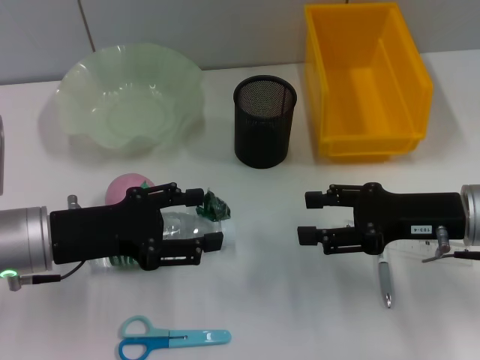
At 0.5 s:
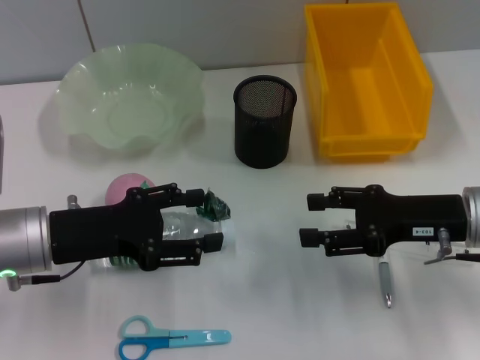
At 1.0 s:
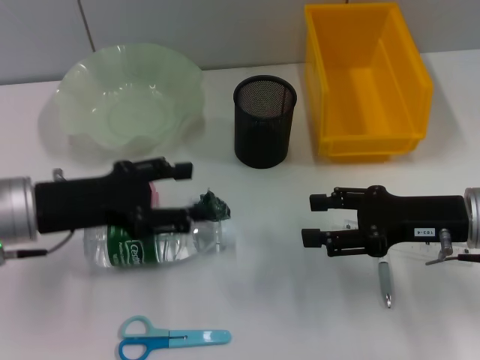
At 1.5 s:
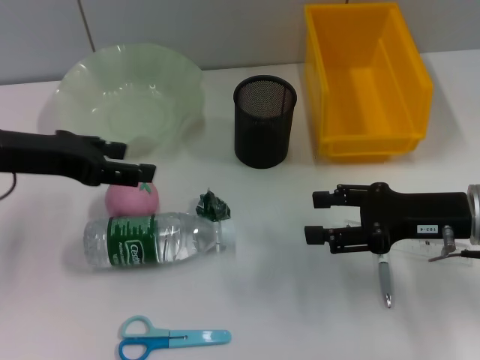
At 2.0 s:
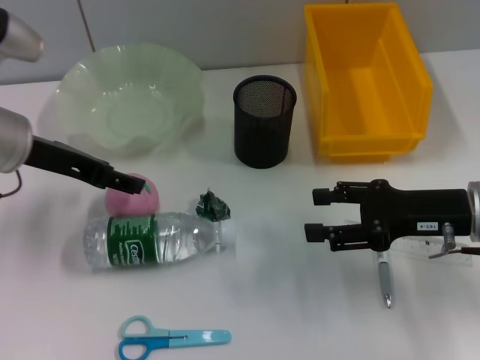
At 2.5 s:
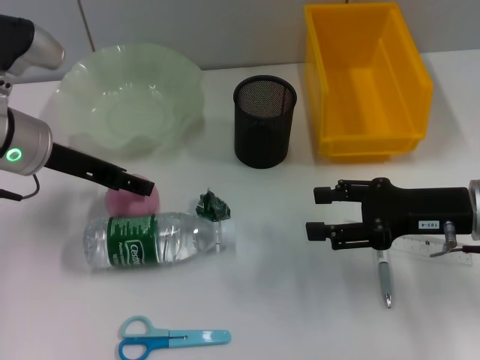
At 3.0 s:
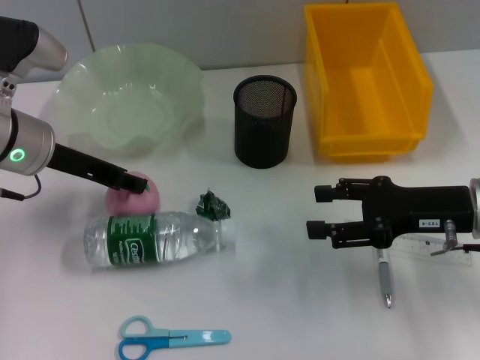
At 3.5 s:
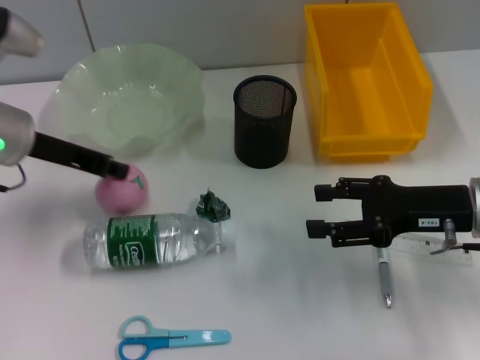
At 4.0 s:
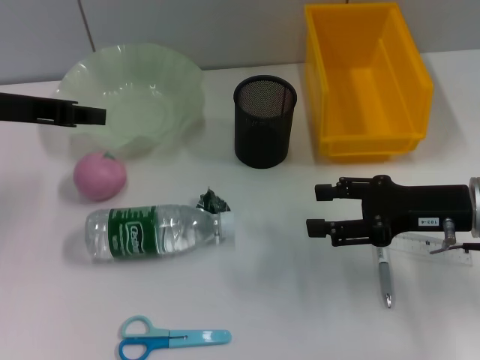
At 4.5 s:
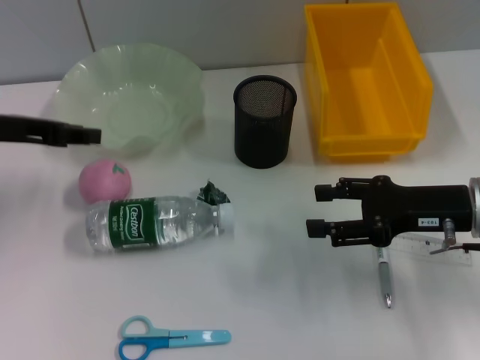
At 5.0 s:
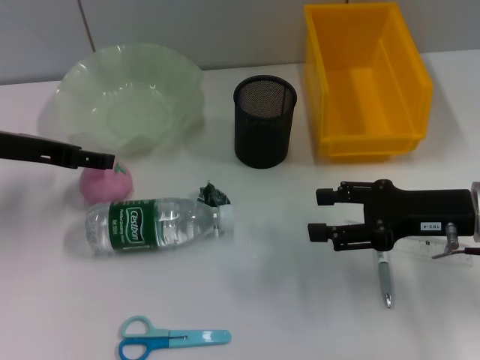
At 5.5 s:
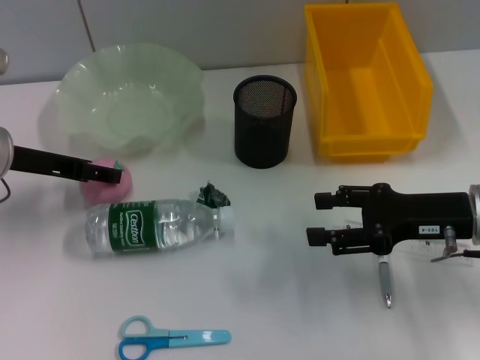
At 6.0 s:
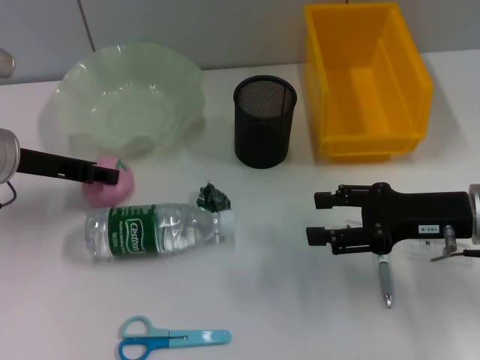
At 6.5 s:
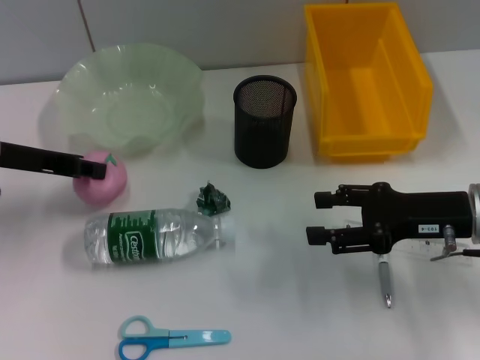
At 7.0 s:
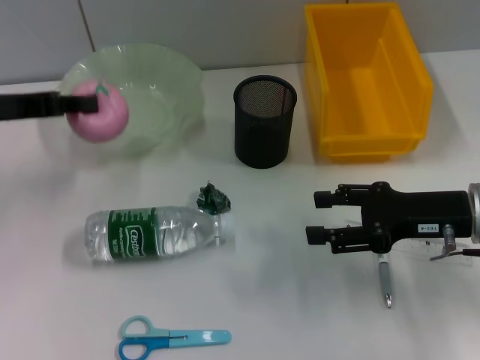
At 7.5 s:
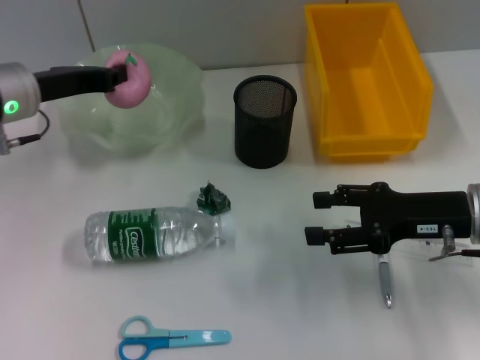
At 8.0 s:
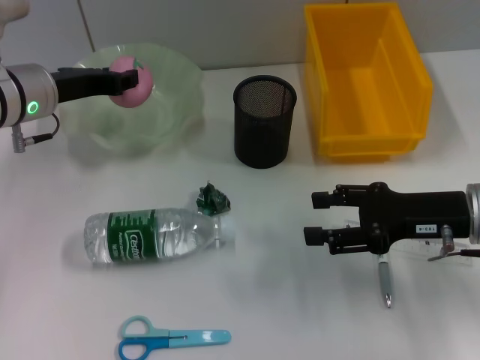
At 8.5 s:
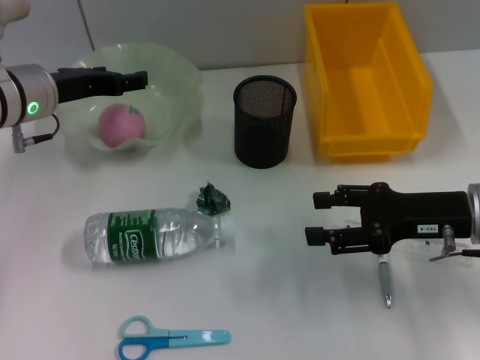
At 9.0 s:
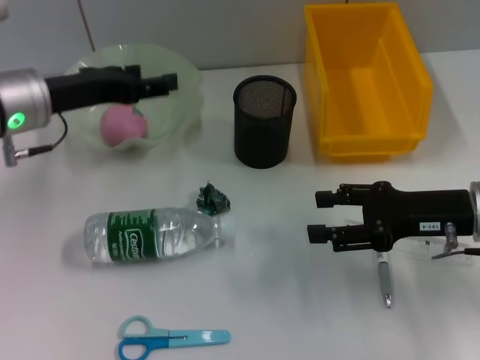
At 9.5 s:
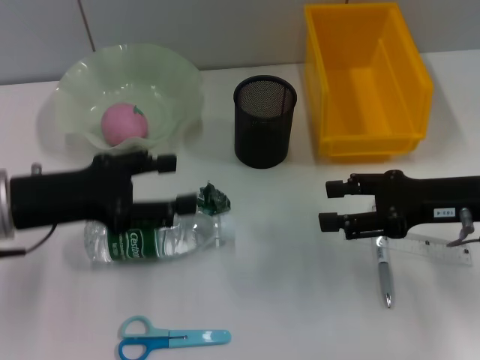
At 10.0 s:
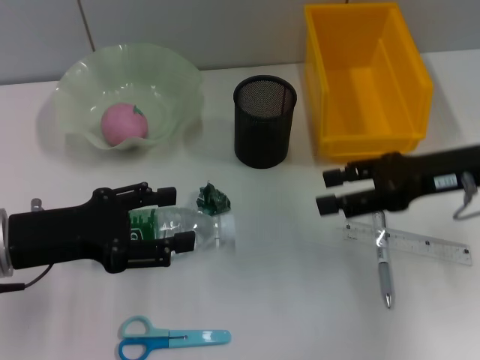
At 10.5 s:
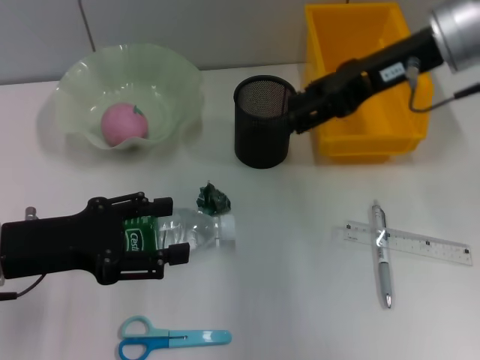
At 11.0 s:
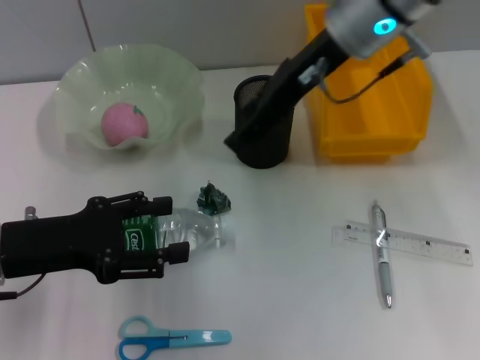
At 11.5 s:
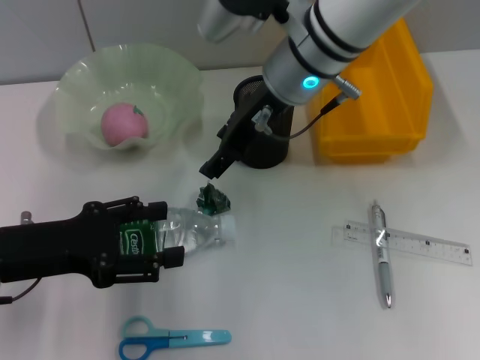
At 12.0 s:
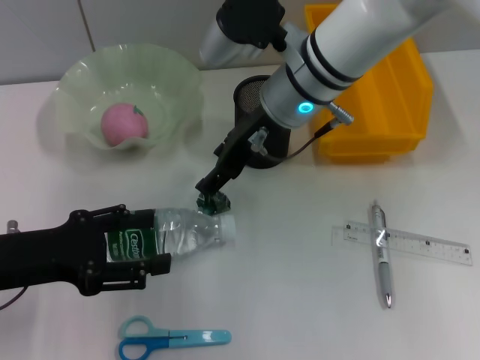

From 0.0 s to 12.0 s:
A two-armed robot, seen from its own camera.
Step, from 0.0 s to 6.0 s: Grab the peach with the left hand.
Step, from 6.5 s to 8.5 s: Place the peach into the fruit bowl with the left hand.
From 0.0 s to 2.0 s: The left gripper goes about 10 cm forward and upward.
From 2.0 s to 4.0 s: The left gripper ends up about 5 cm from where it was, and closes its fingers.
From 4.0 s to 6.0 s: The left gripper travels downward by about 5 cm, and opens up.
From 6.0 s to 8.0 s: The left gripper moves roughly 5 cm, and closes up.
From 8.0 s to 10.0 s: The right gripper travels upward by about 5 cm, while the left gripper moves backward, some 15 cm, and opens its fingers.
From 10.0 s to 12.0 s: The right gripper heads to the left and forward, covering some 20 cm.

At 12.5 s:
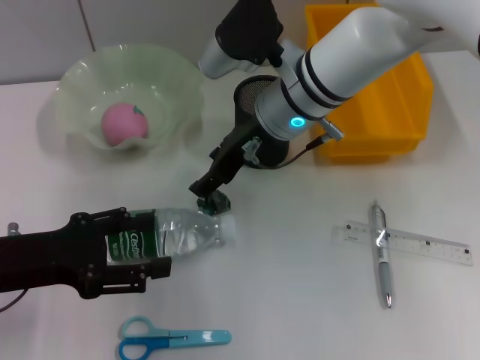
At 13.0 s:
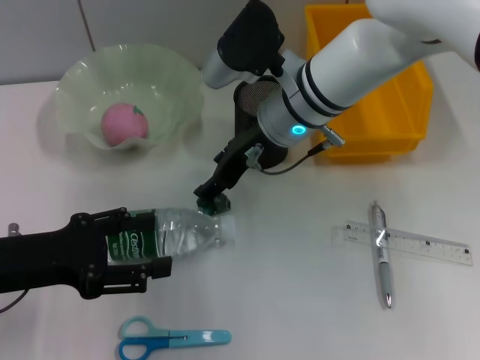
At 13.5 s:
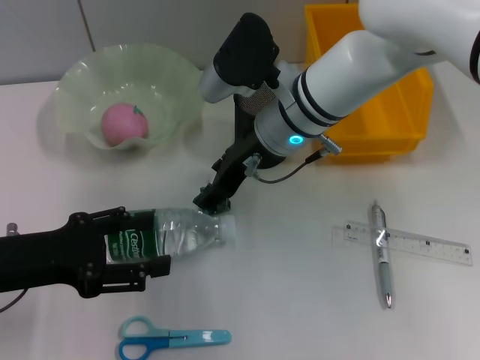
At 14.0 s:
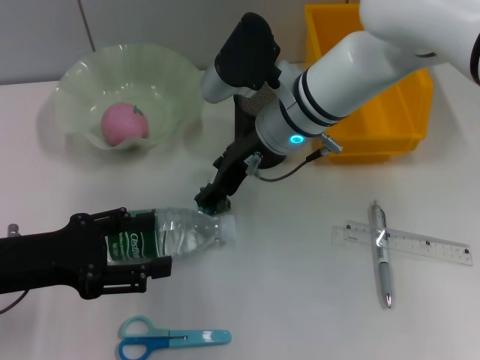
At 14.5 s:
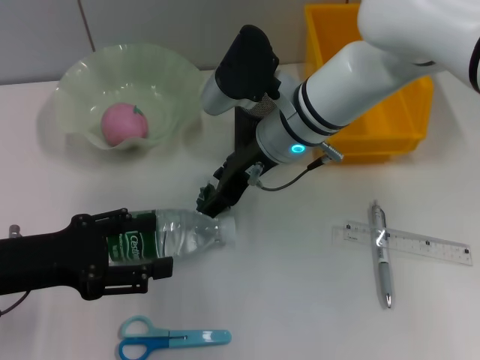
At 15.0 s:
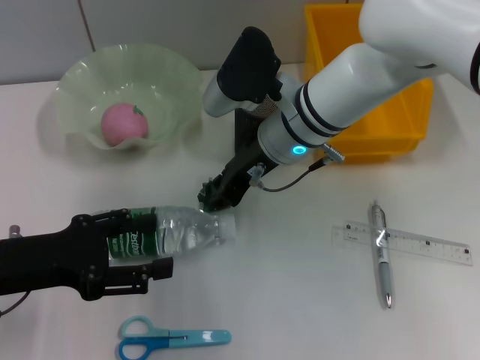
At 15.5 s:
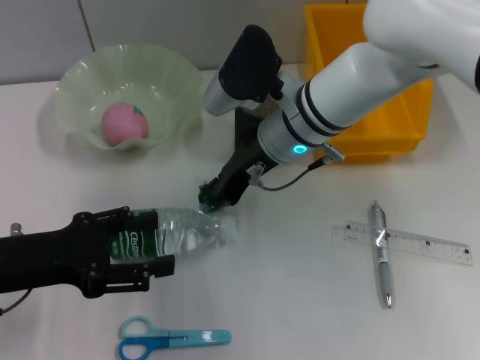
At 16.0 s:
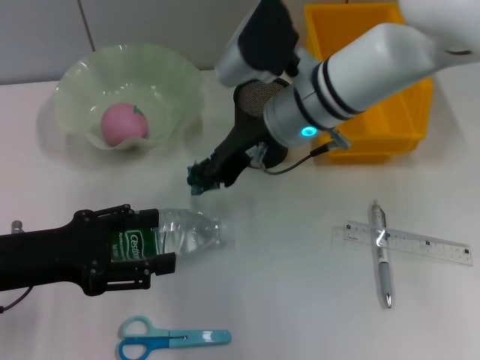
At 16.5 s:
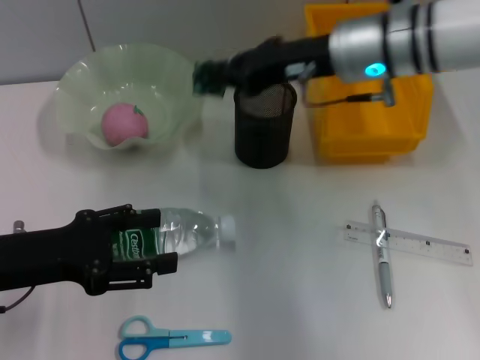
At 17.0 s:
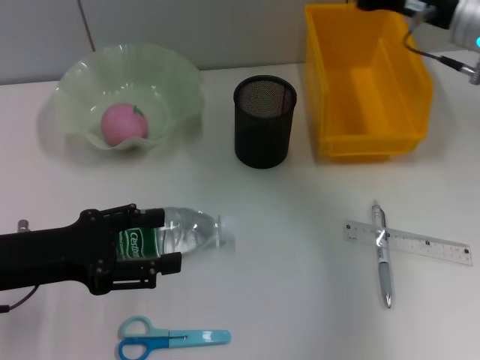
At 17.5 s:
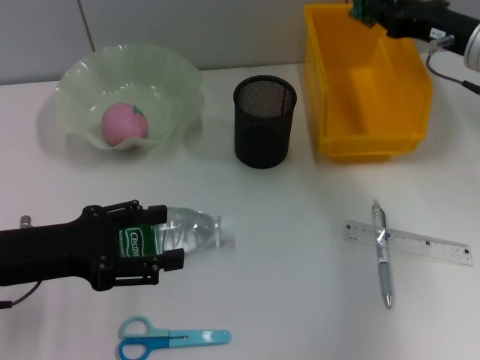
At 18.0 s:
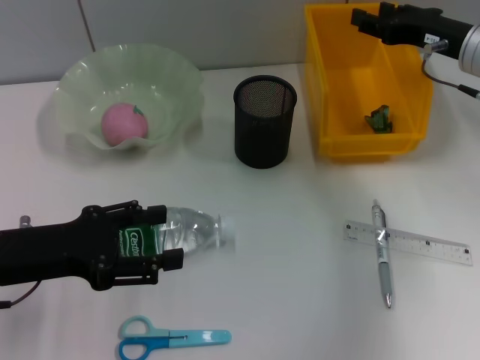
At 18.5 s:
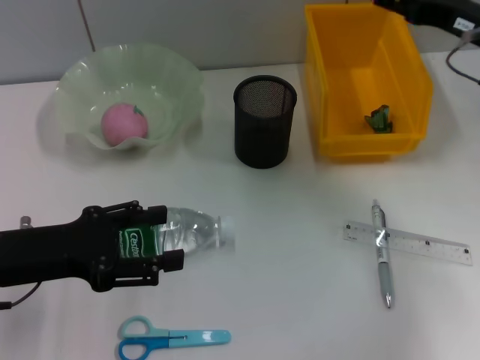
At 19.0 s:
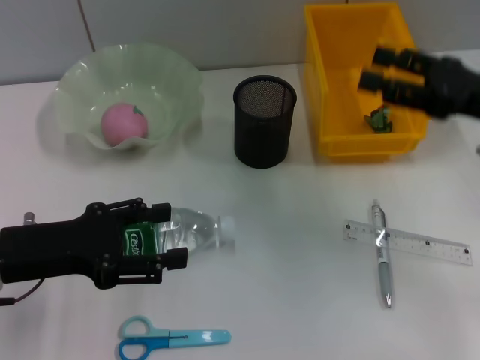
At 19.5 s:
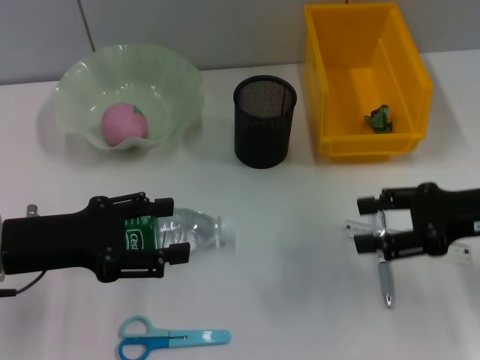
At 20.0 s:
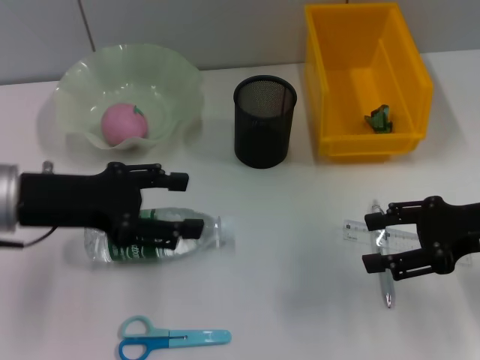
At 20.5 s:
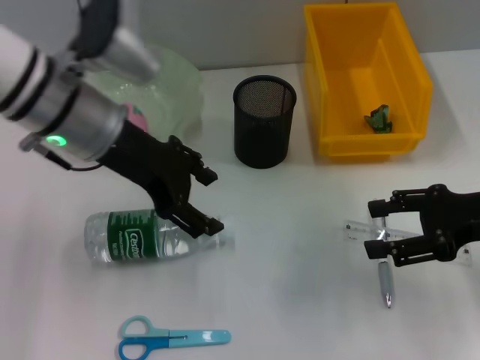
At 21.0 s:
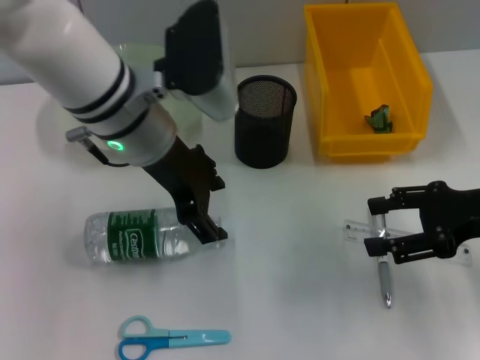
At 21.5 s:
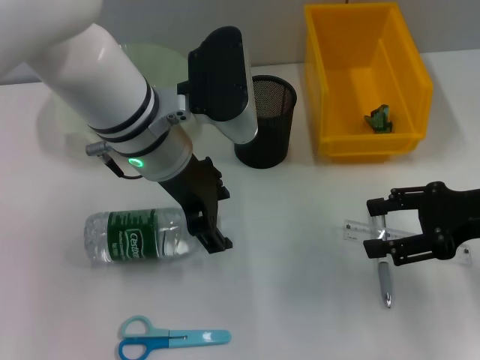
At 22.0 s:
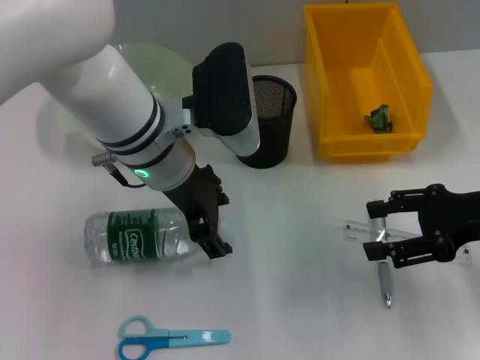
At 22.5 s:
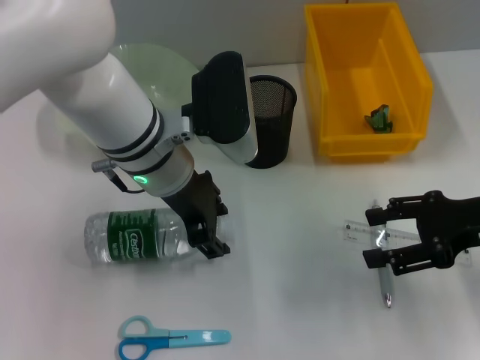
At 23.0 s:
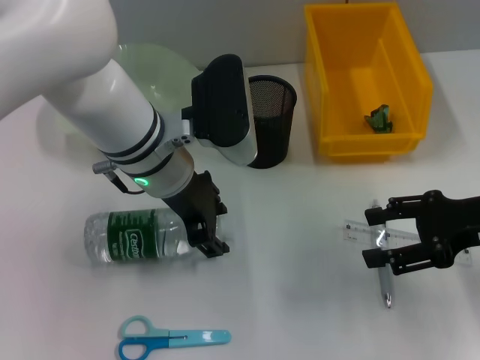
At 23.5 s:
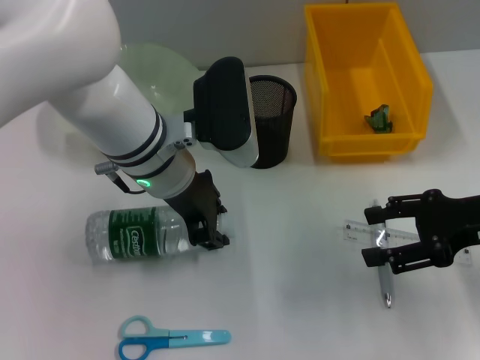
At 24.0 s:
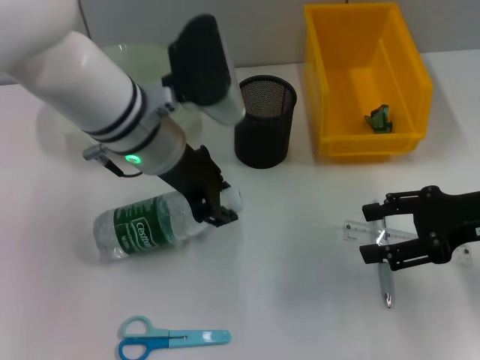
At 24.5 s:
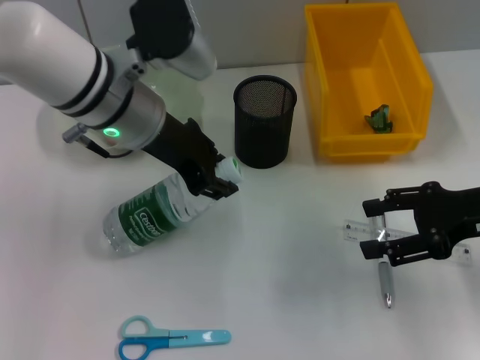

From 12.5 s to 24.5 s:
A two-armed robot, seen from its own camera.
Step, from 12.5 s to 15.0 s: Grab the plastic with the right hand.
Step, from 15.5 s to 17.5 s: Place the plastic into the trash can with the right hand.
Step, from 18.5 s to 23.0 s: Grab the water bottle with the left hand.
From 12.5 s to 14.5 s: There are only small adjustments of the grippers.
From 14.5 s to 16.5 s: The right gripper heads to the right and upward, covering some 10 cm, and closes up.
From 16.5 s to 18.5 s: The right gripper moves to the right, about 15 cm, and opens up.
From 18.5 s to 20.5 s: The left gripper is displaced to the right, forward and upward by roughly 20 cm, while the right gripper goes about 10 cm backward.
From 20.5 s to 22.5 s: The left gripper moves to the right, about 5 cm.
From 22.5 s to 24.5 s: The left gripper ends up approximately 5 cm from where it was, and closes up.

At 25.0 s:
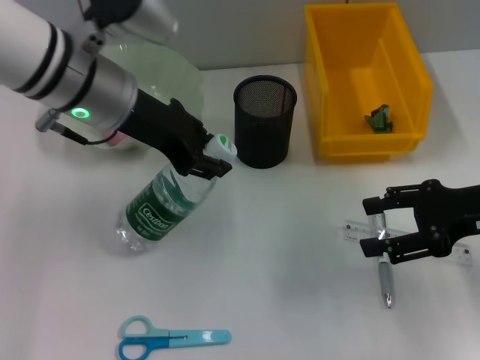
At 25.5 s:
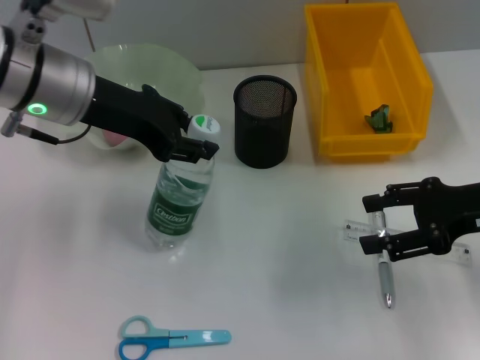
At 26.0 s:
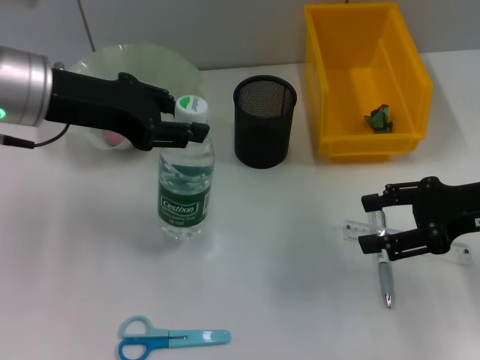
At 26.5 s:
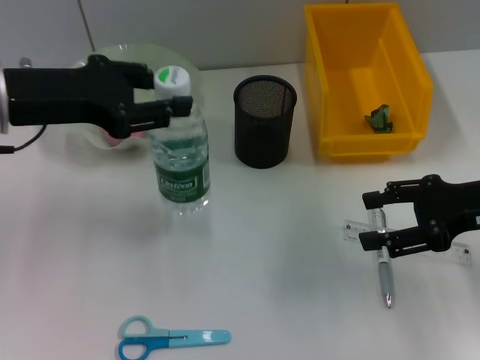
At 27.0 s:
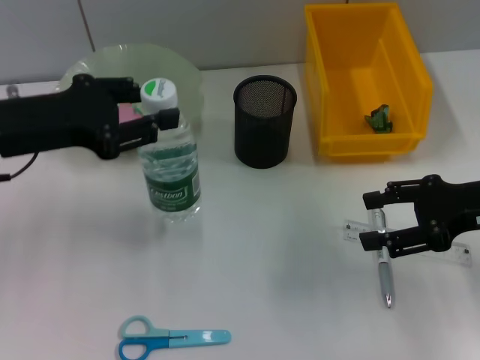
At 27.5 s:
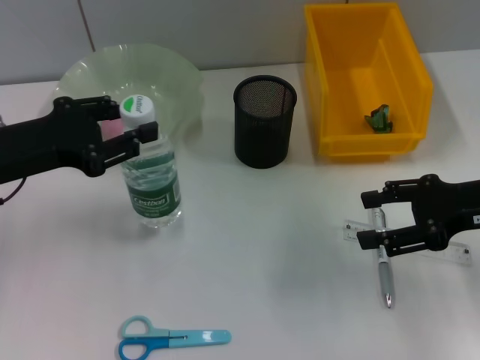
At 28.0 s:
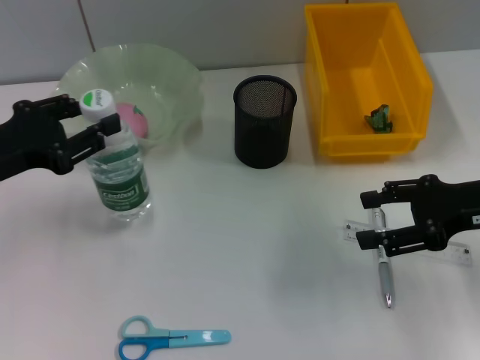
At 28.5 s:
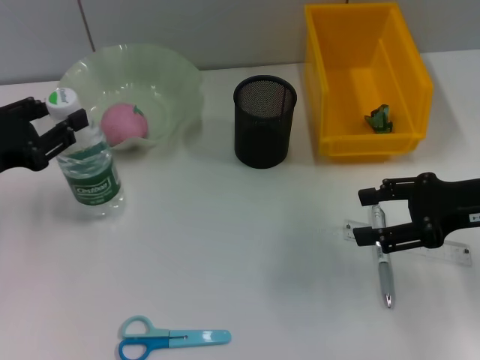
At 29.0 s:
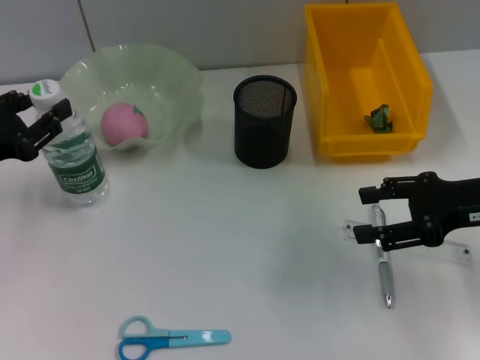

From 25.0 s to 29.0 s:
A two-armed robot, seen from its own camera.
From 25.0 s to 27.0 s: The left gripper travels to the left and backward by about 10 cm.
From 27.0 s to 29.0 s: The left gripper goes some 10 cm to the left and downward.
